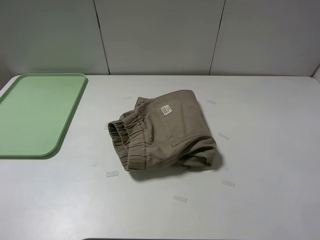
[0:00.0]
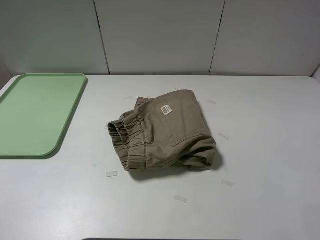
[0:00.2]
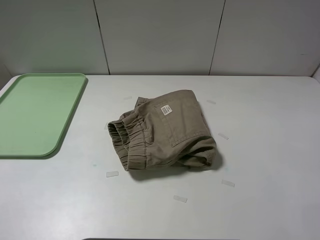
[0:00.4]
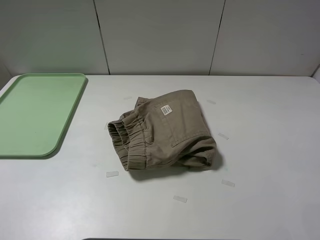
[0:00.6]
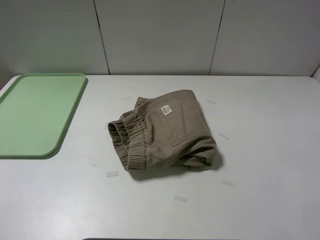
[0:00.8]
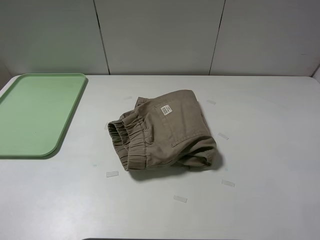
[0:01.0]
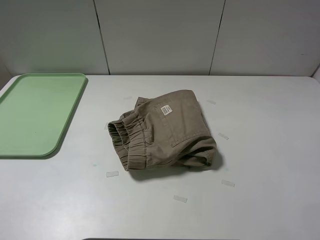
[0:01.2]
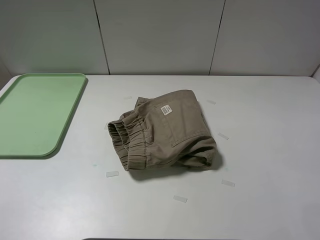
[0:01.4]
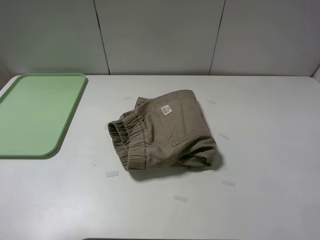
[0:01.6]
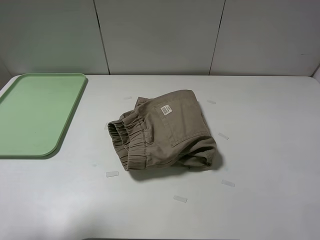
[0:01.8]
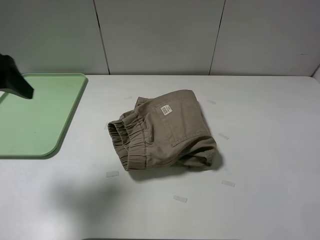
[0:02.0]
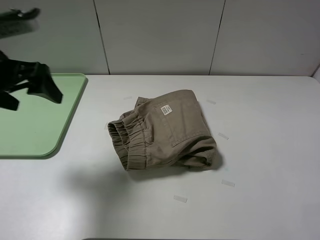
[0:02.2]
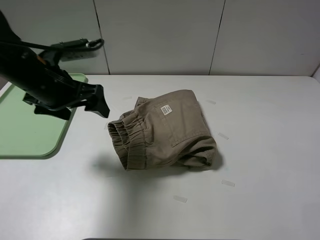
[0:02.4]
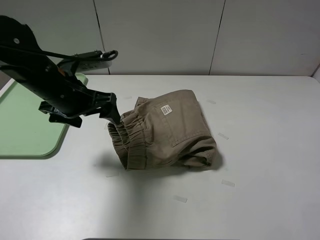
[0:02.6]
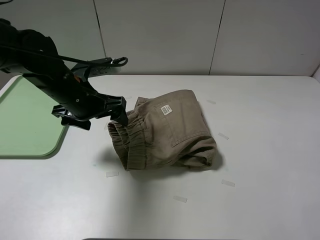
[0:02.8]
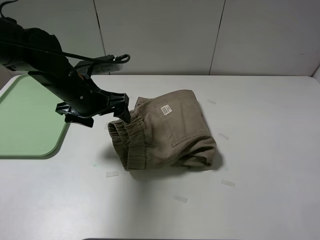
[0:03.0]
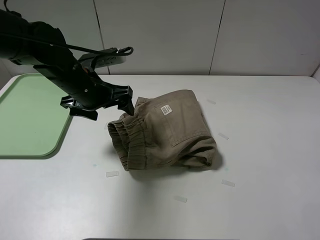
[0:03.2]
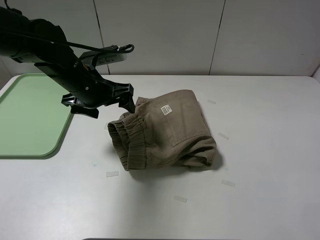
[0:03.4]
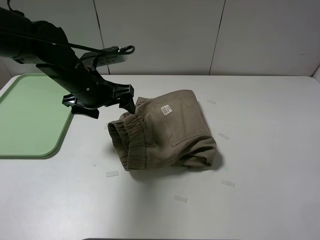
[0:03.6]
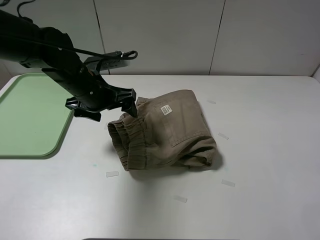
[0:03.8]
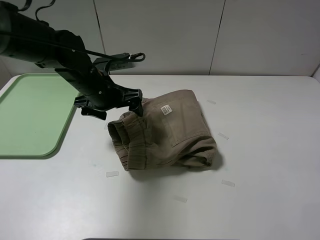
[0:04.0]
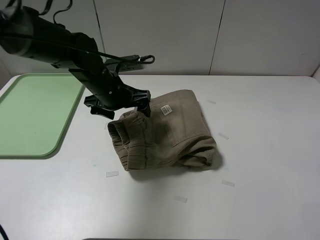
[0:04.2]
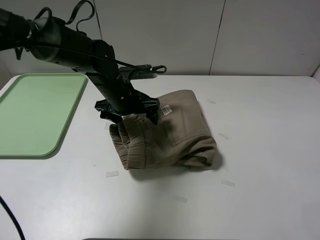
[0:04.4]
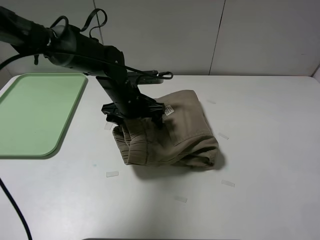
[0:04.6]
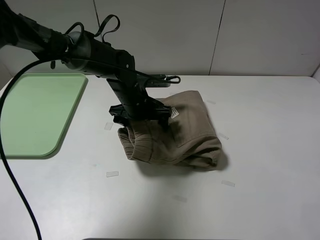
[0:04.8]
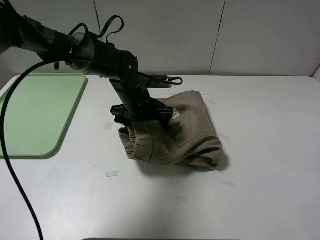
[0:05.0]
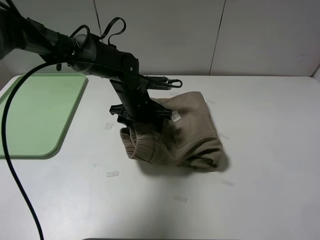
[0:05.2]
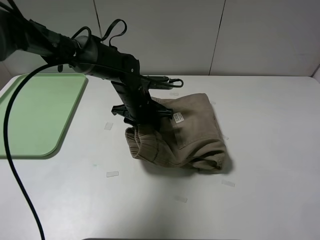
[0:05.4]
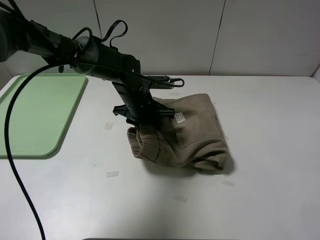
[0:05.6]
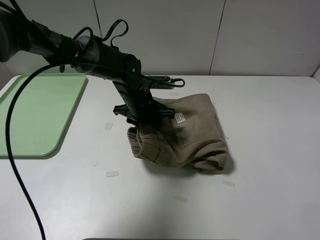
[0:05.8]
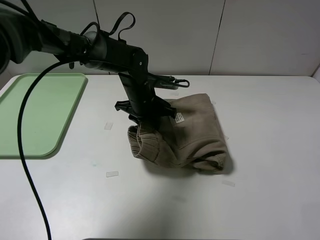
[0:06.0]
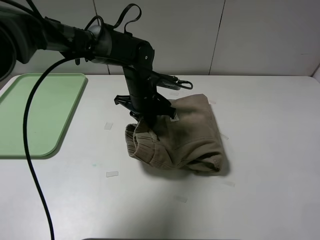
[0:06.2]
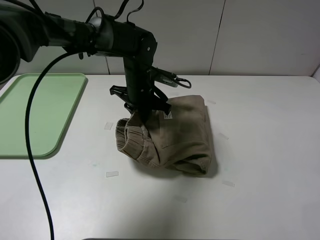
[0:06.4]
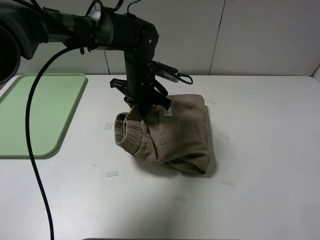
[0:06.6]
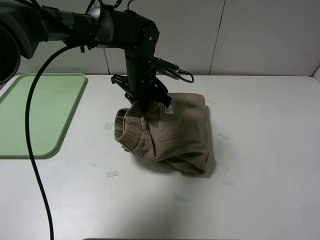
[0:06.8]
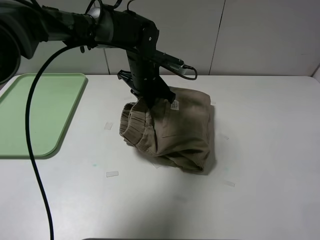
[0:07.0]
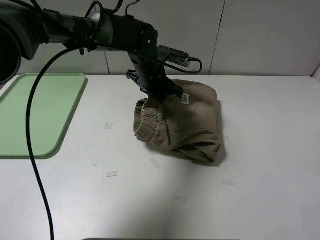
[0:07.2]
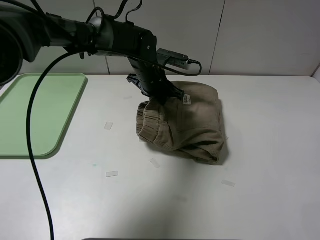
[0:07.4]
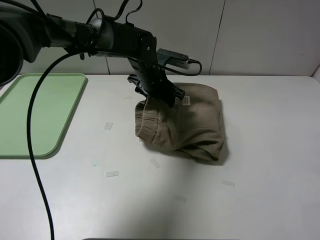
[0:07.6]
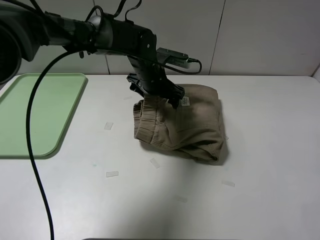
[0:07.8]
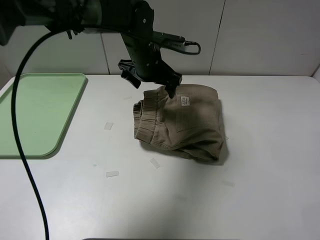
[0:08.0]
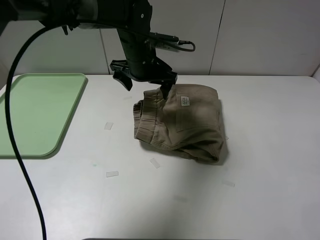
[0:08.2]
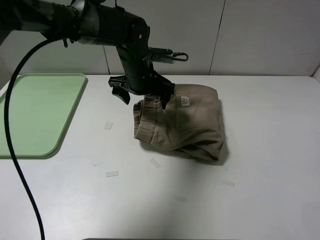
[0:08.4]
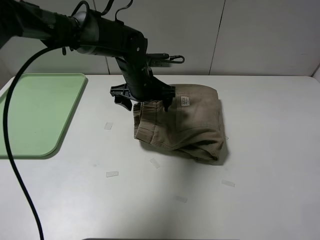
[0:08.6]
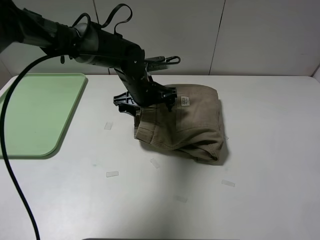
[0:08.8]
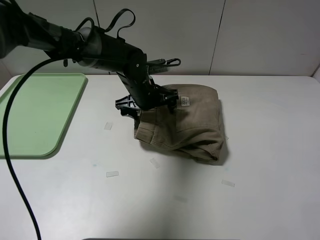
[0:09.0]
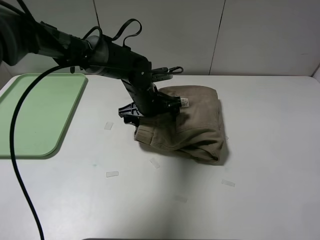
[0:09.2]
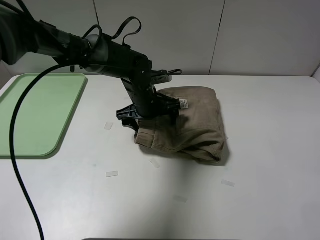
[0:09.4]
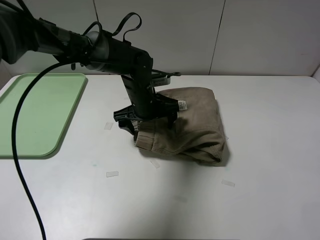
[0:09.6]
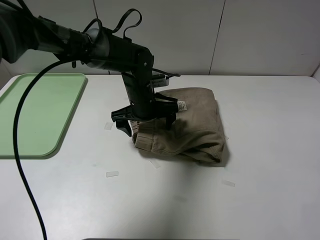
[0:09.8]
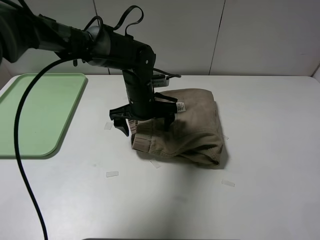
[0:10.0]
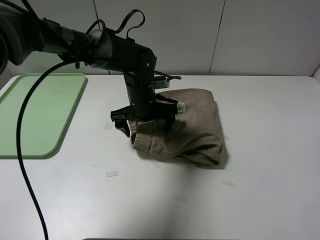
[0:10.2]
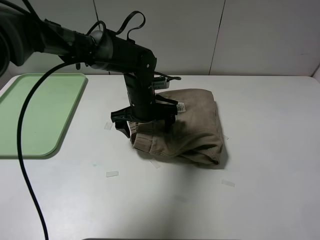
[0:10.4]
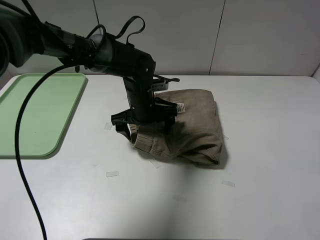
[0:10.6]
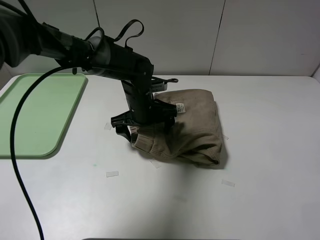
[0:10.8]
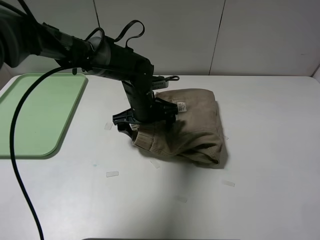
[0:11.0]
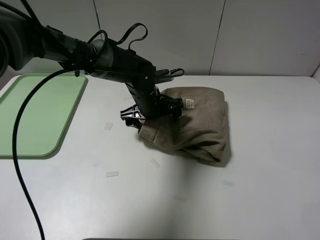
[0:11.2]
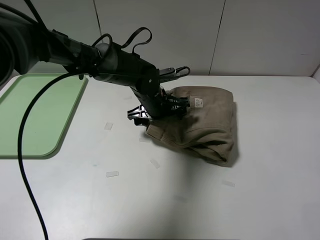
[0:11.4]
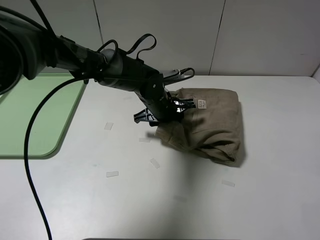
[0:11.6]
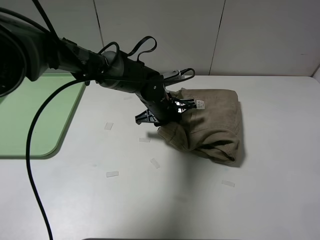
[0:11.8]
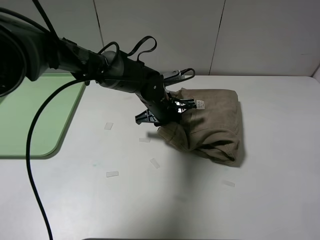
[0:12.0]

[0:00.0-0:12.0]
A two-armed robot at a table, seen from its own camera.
Task of the whole recording: fold the khaki jeans in half with two grippers, then fold them in half again, and use the left claw to place the folded fold khaki jeans on the tray.
Step, 0:00.0 to 0:11.8: Grasp the khaki trousers with the left gripper.
0:01.6 to 0:03.0: The left gripper is displaced forward, to the right and downward by approximately 30 cm.
0:03.0 to 0:04.4: The left gripper moves to the right, forward and downward, some 10 cm.
0:04.4 to 0:06.0: The left gripper moves roughly 5 cm, and closes.
0:06.0 to 0:07.6: The left gripper changes place by approximately 5 cm.
0:07.6 to 0:09.0: The left gripper goes upward and returns, about 5 cm each way.
0:09.0 to 0:10.4: The grippers make only small movements.
0:10.4 to 0:12.0: The left gripper closes.

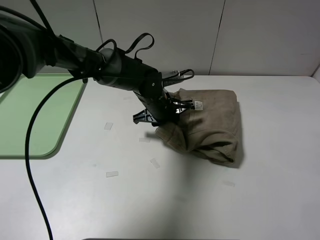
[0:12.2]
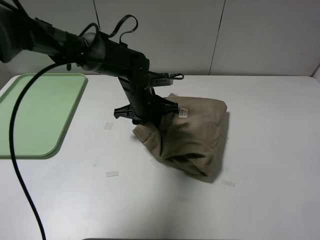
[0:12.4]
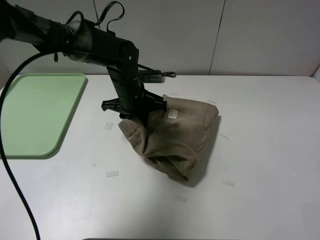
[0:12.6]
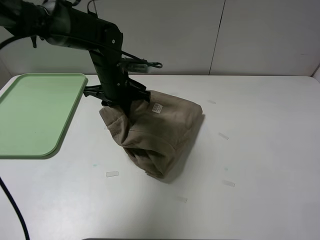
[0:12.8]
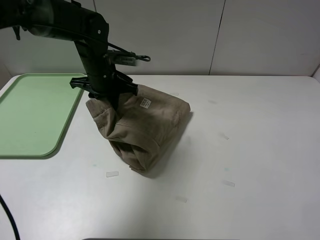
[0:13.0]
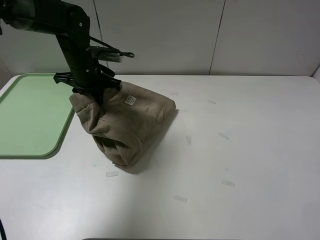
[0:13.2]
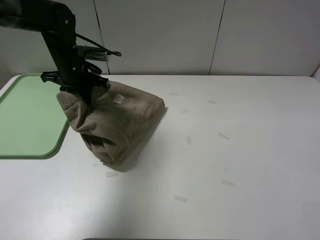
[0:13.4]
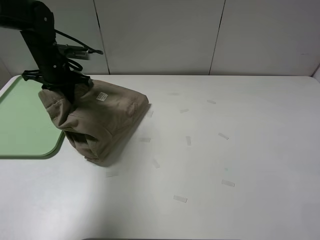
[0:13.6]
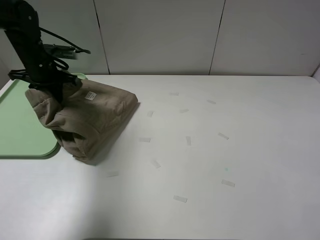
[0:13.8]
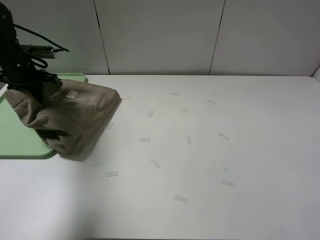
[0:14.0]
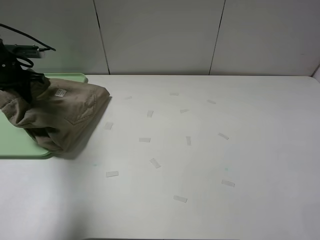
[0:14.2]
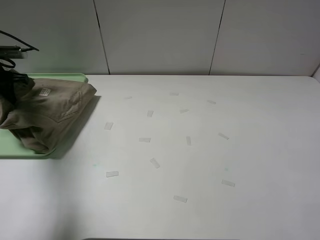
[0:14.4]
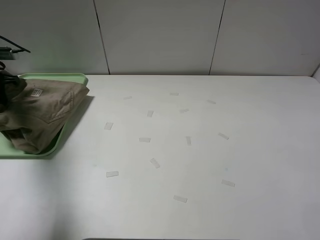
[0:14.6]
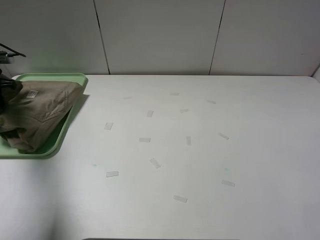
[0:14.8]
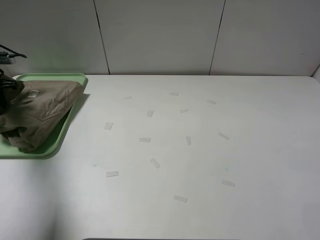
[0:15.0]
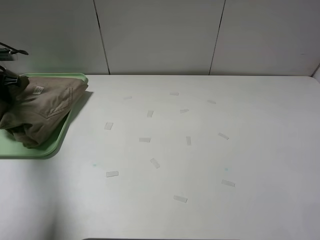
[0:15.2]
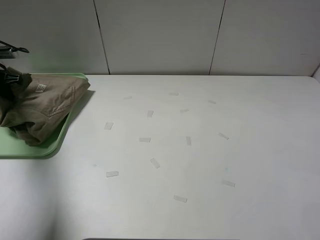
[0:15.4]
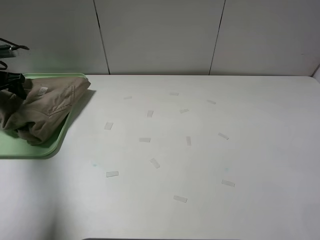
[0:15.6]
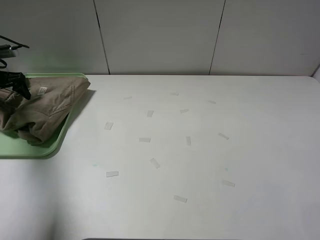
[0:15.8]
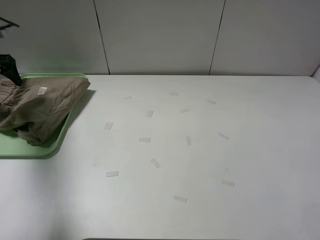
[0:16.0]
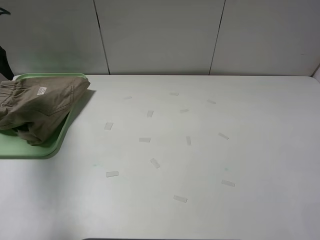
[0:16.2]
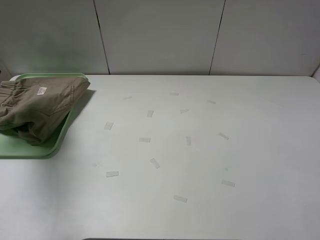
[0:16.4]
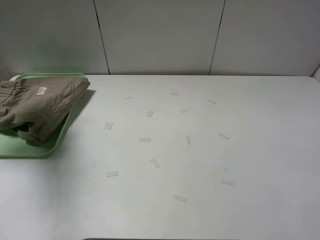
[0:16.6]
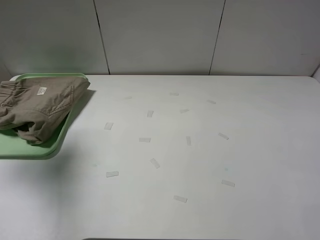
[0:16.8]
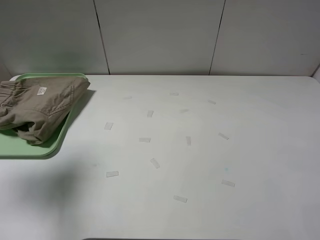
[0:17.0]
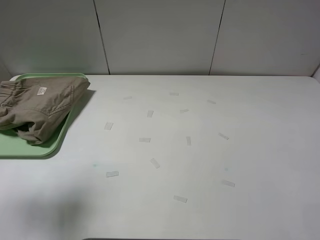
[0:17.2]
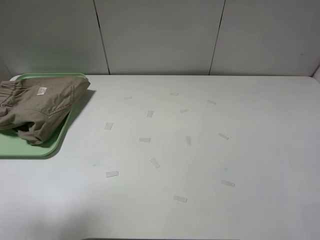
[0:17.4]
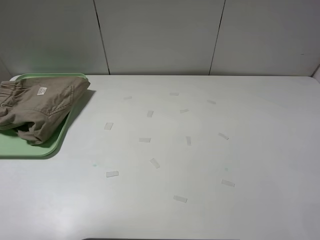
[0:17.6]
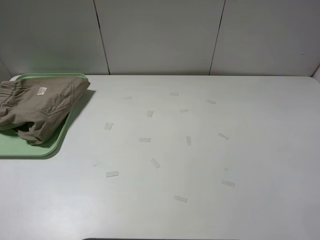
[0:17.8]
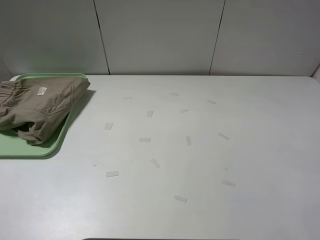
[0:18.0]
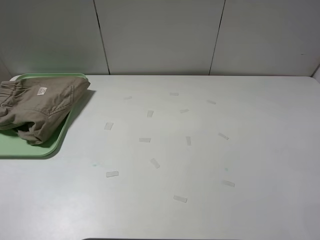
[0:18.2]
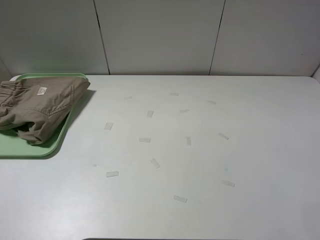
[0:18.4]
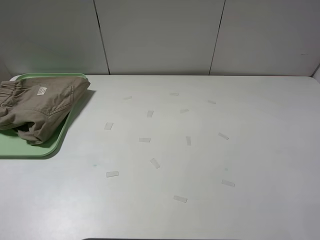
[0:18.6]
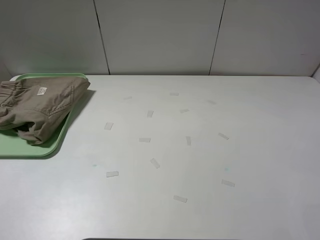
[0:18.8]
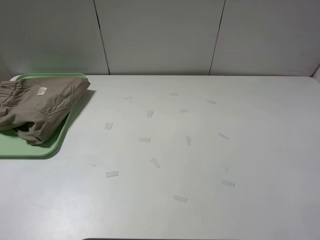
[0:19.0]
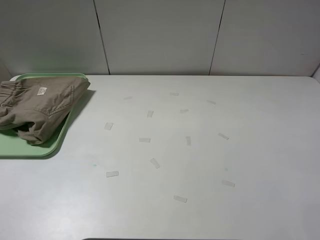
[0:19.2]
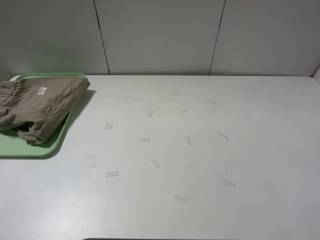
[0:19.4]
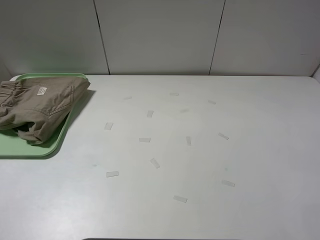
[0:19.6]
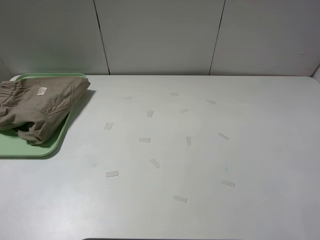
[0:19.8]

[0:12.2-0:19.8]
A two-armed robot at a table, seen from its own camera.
Task of the whole recording: fold the khaki jeans in half with two grippers, then fold them in half again, and use the left claw to place the folded fold khaki jeans on the tray.
Step, 0:12.2 to 0:16.0: Place the folded khaki trousers on the green tray with the left gripper.
0:12.2 to 0:13.8: The left gripper goes approximately 30 cm to the left.
0:13.8 to 0:15.2: The left gripper shifts some 15 cm to the left.
0:15.2 to 0:16.8: The left gripper shifts some 25 cm upward and backward, and opens up.
0:16.8 to 0:18.2: The left gripper goes about 30 cm backward and to the right.
